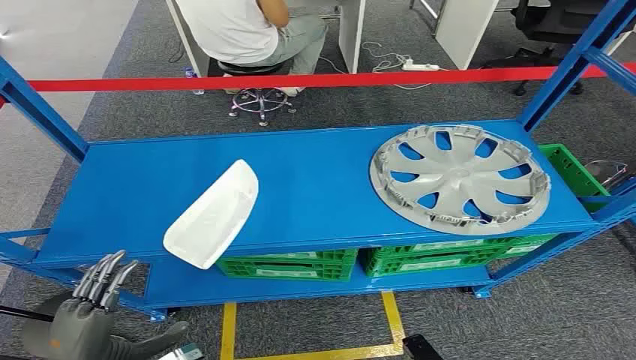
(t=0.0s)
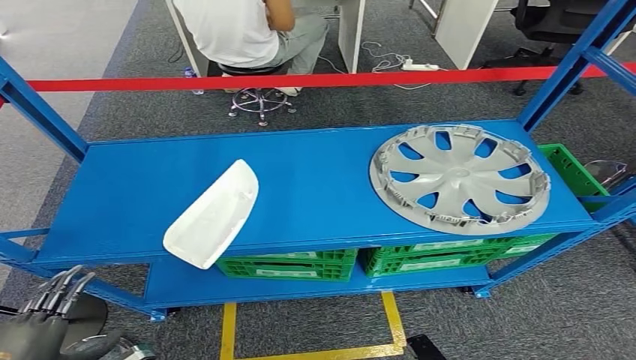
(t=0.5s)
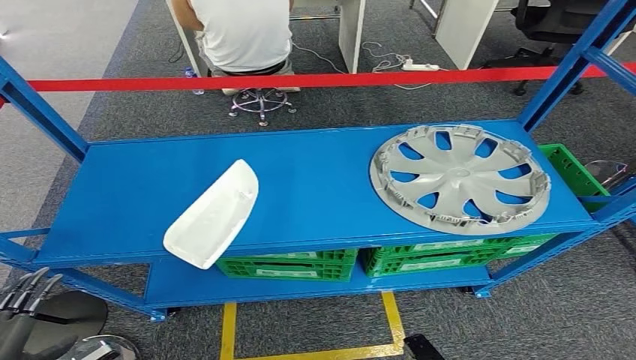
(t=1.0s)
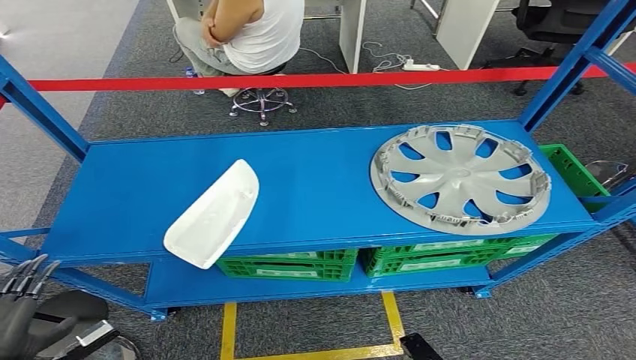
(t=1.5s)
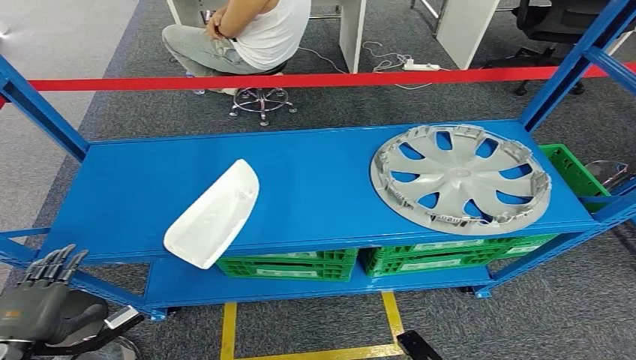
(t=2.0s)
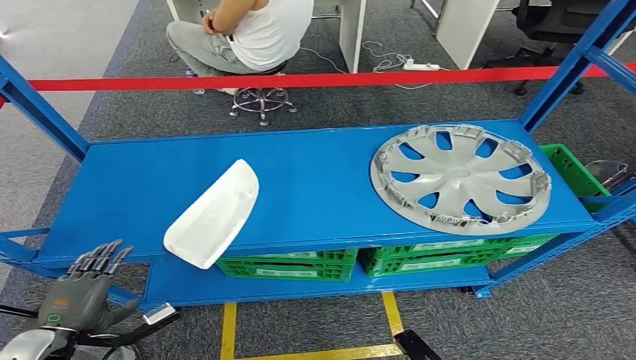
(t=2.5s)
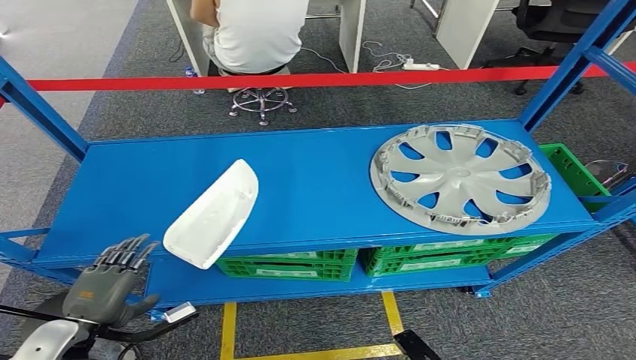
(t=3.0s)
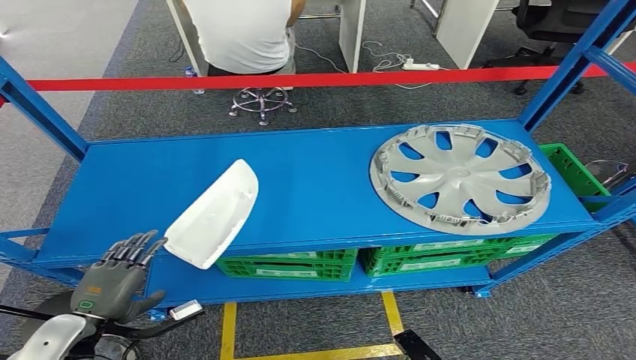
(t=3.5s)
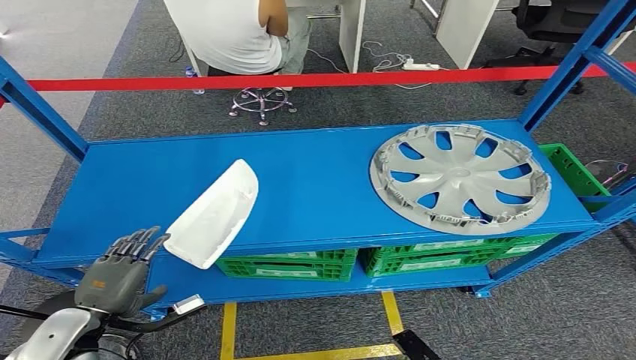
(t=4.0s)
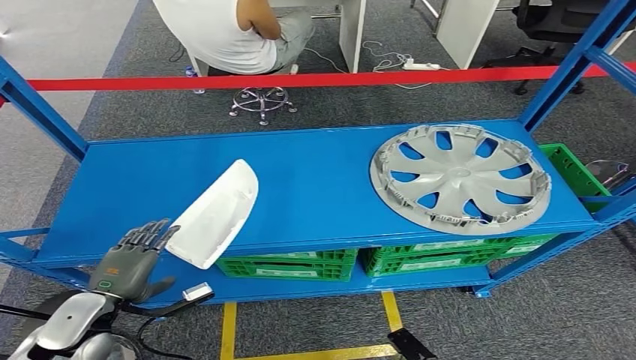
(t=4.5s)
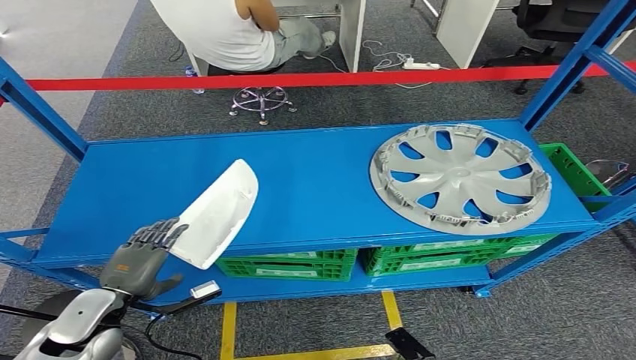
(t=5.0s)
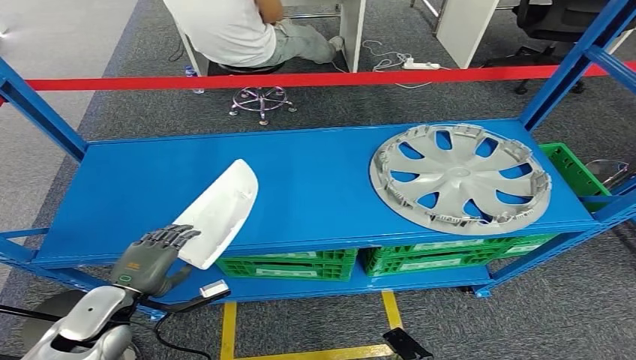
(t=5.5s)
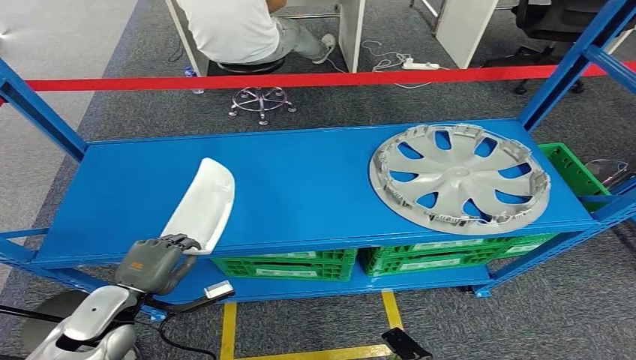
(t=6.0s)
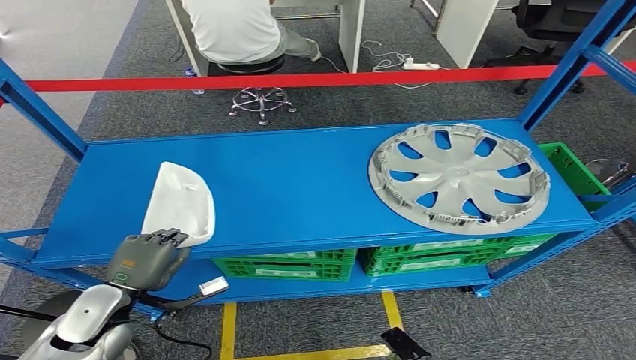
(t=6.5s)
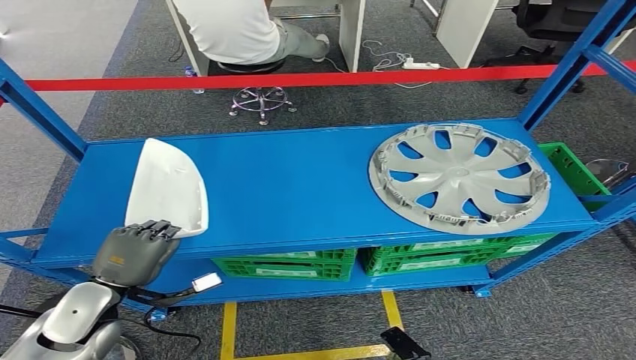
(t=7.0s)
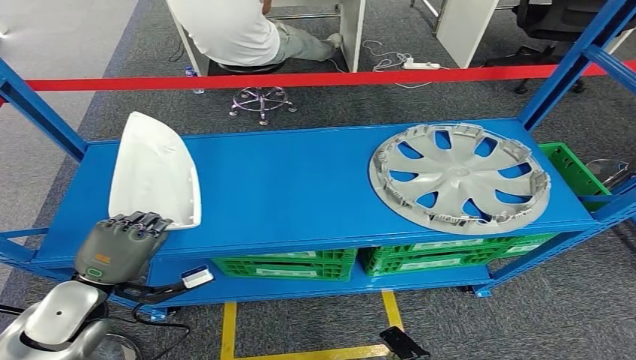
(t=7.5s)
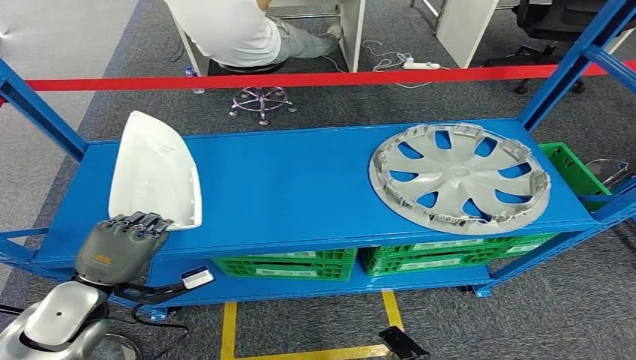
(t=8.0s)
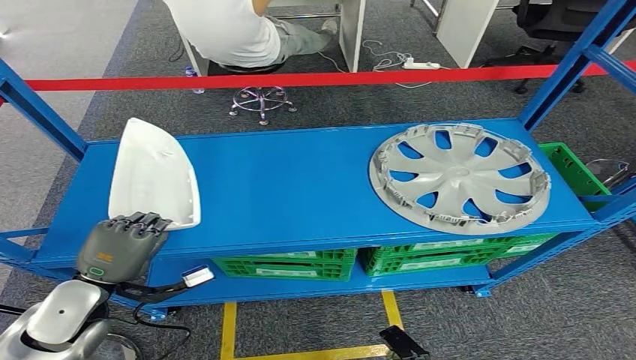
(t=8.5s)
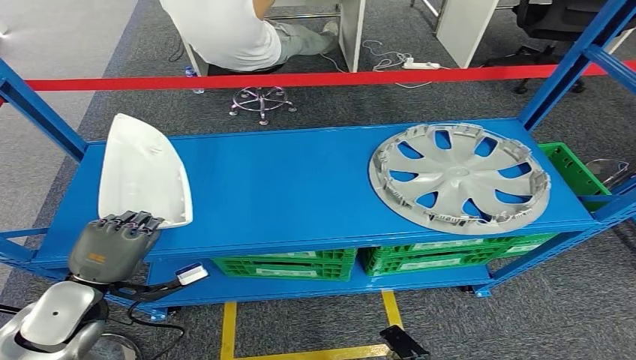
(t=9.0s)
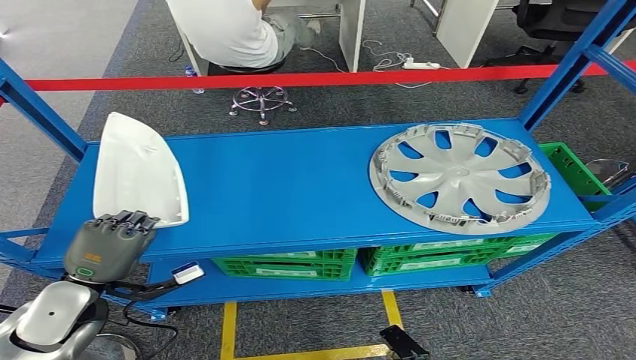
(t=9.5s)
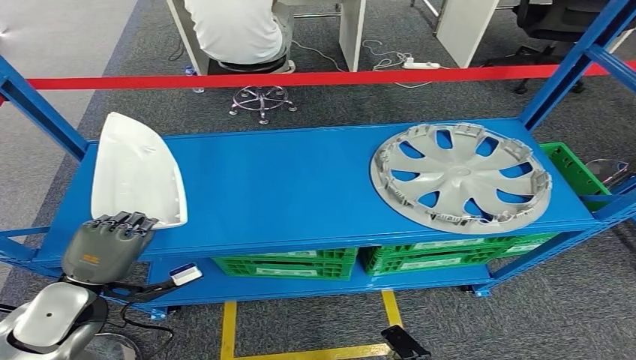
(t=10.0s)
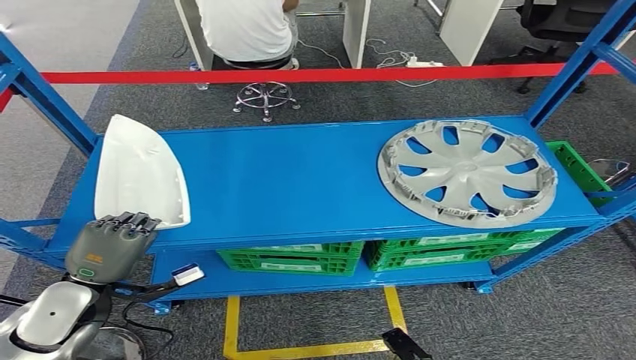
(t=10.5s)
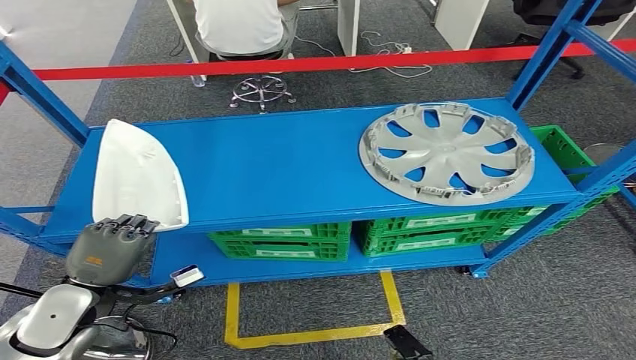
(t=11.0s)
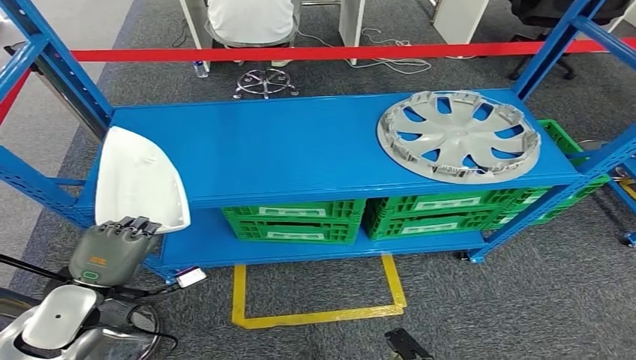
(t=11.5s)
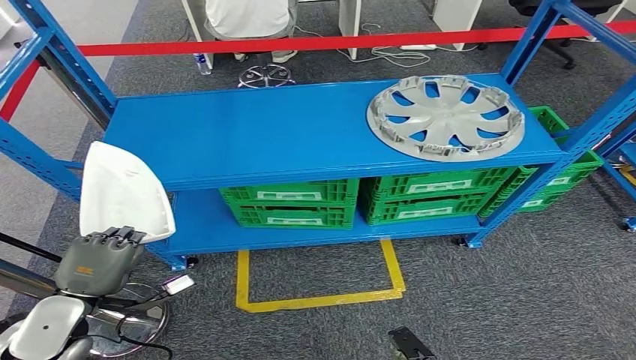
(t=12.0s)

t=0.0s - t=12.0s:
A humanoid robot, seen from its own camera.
Step, t=0.0s - t=12.0s: Pick up the small parts from the shelf.
t=2.0s - t=4.0s: The left hand shifts approximately 10 cm to the right and forward.
t=4.0s - t=6.0s: The left hand moves approximately 5 cm.
t=6.0s - t=8.0s: The left hand goes about 5 cm upward.
t=8.0s - t=10.0s: Both hands stay put.

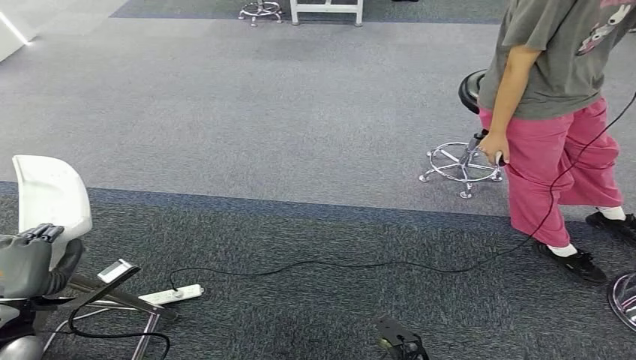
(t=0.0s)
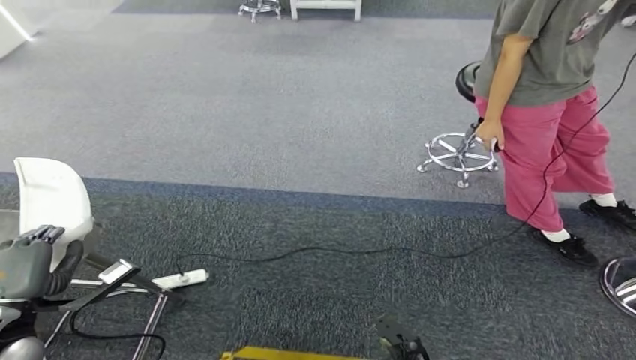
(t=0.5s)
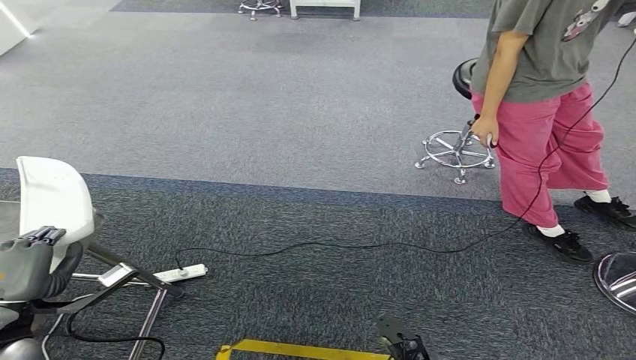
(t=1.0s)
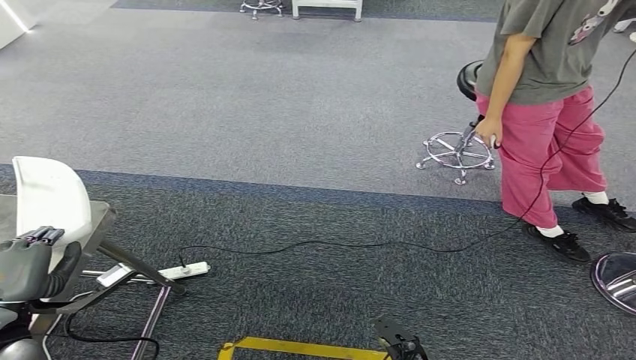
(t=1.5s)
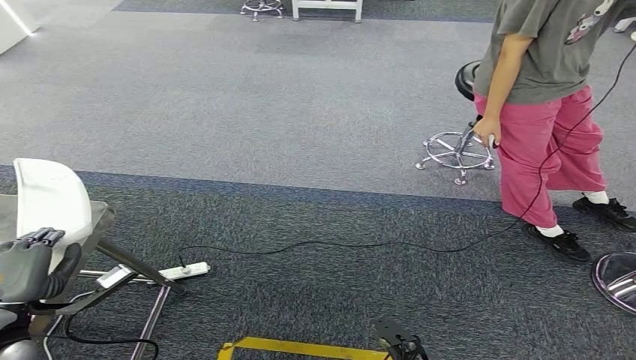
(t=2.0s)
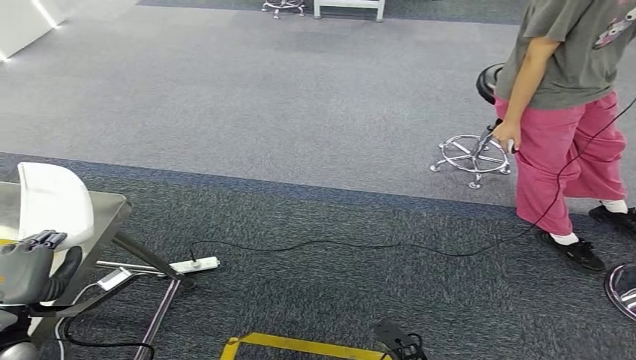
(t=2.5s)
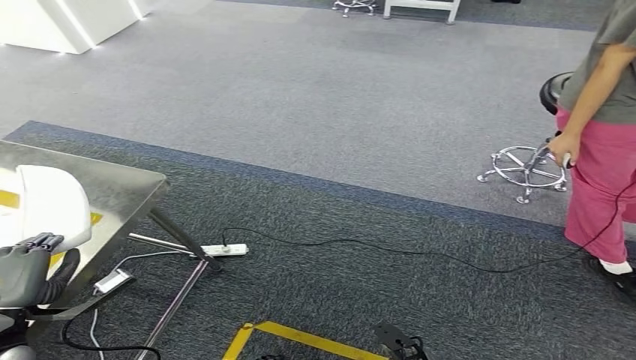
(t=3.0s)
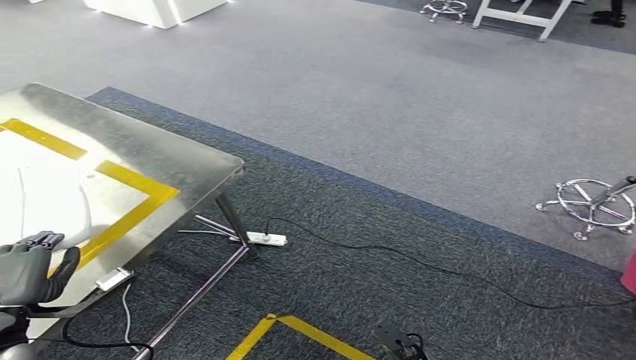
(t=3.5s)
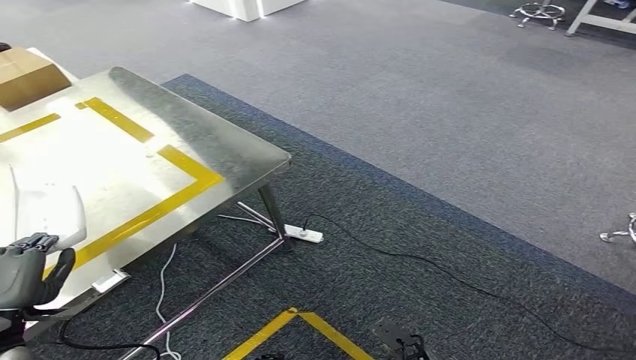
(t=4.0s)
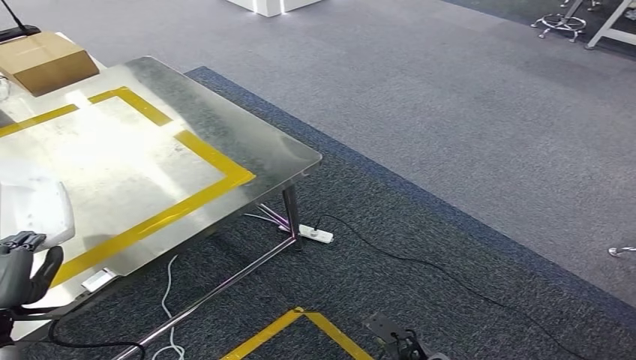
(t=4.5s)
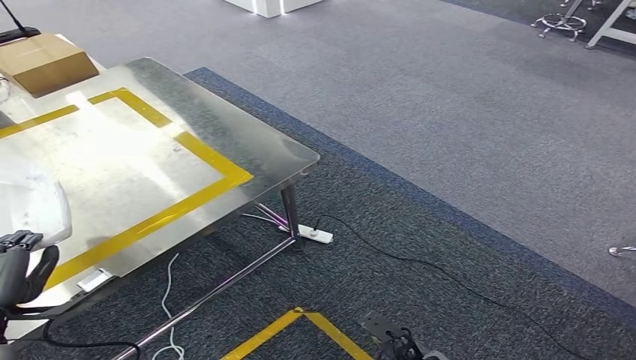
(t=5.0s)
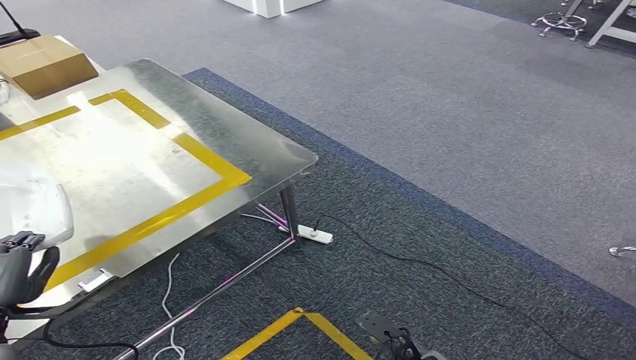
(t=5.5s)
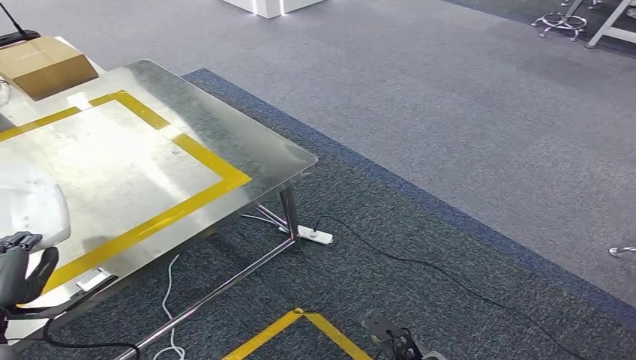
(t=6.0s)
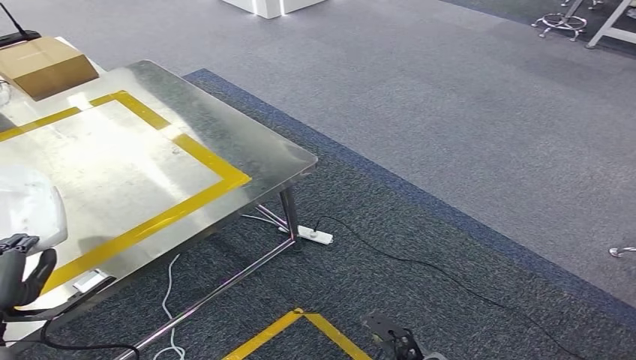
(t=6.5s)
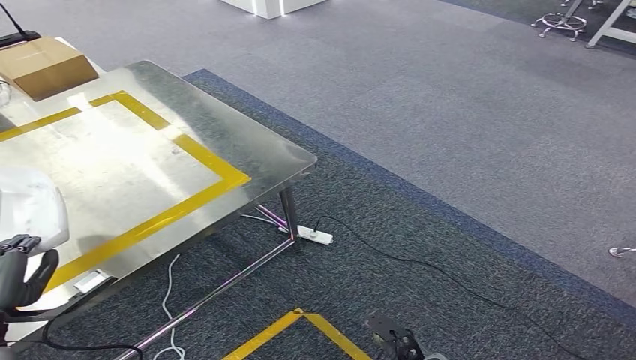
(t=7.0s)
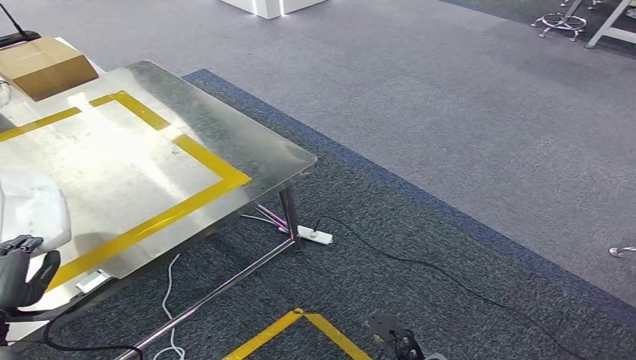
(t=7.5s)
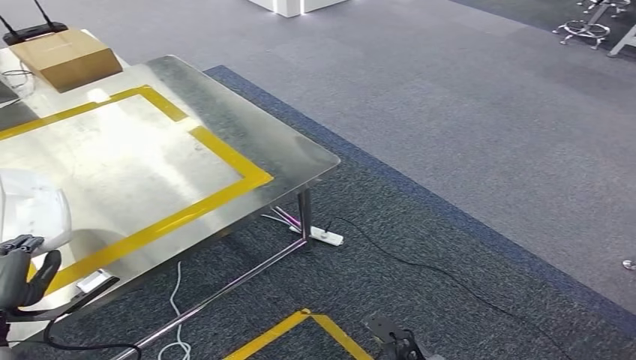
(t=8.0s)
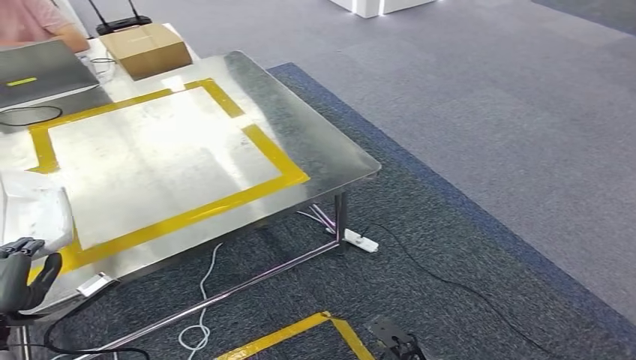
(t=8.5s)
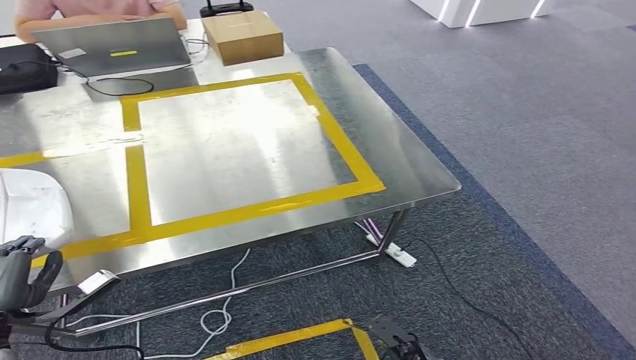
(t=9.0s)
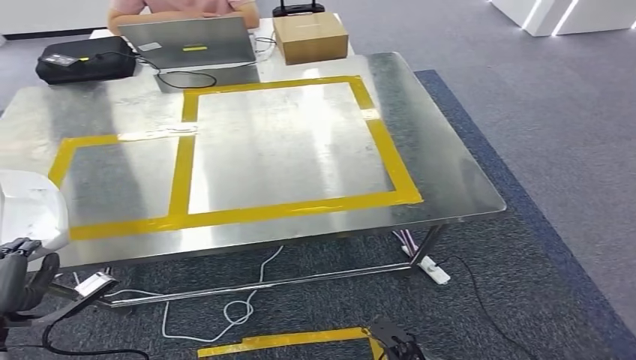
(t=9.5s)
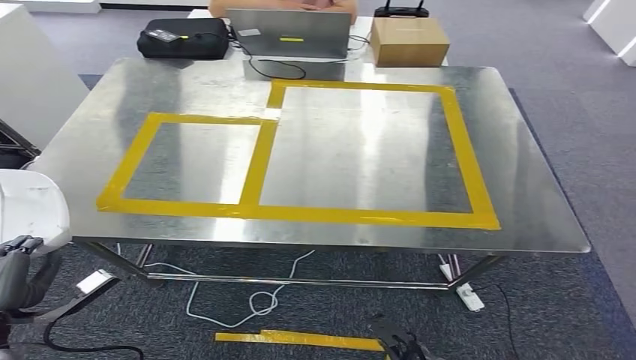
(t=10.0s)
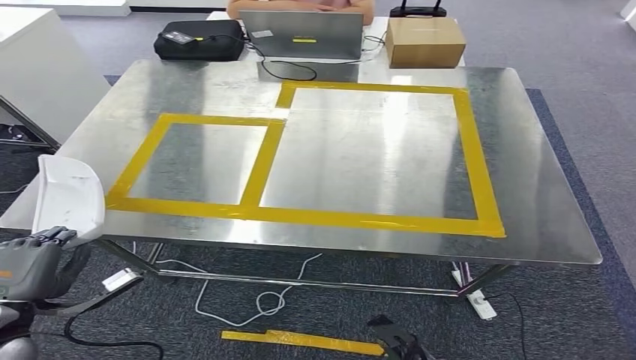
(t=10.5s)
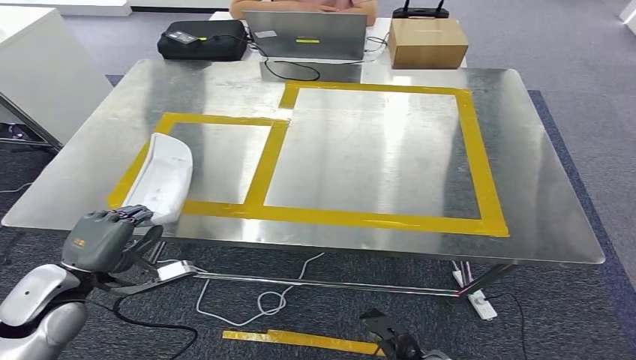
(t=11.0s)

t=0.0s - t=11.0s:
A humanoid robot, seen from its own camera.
Step, t=0.0s - t=6.5s: Move the small parts to the workbench.
t=5.5s - t=7.5s: The hands stay close to where they were, moving slightly.
